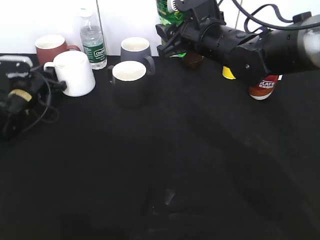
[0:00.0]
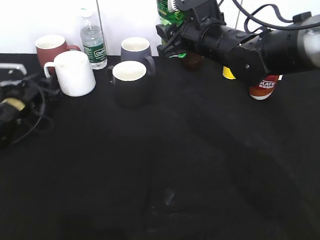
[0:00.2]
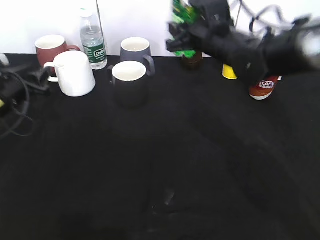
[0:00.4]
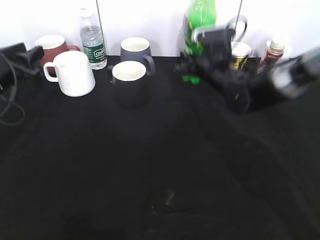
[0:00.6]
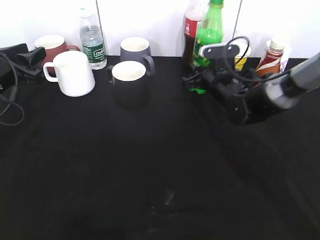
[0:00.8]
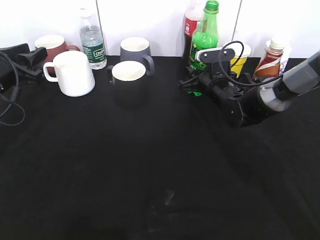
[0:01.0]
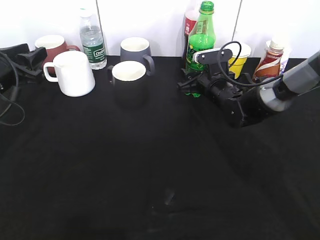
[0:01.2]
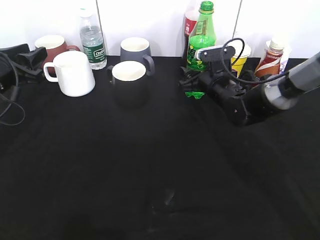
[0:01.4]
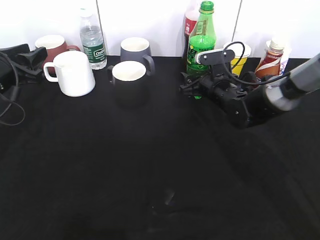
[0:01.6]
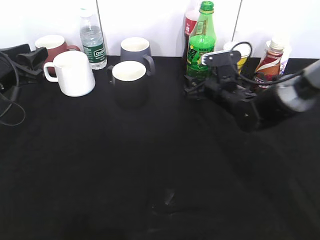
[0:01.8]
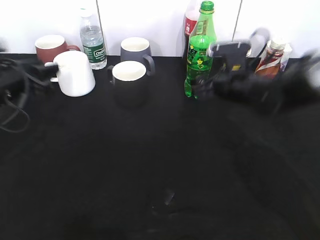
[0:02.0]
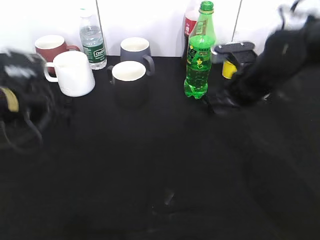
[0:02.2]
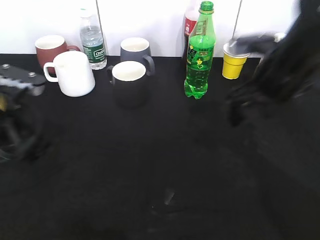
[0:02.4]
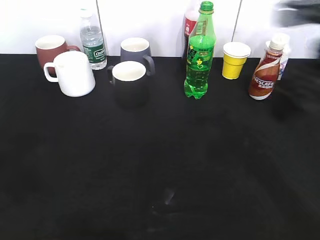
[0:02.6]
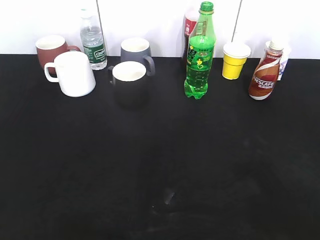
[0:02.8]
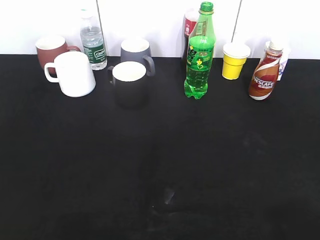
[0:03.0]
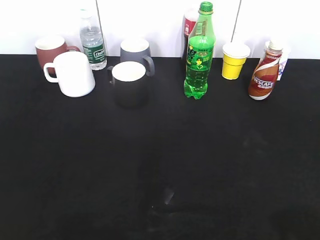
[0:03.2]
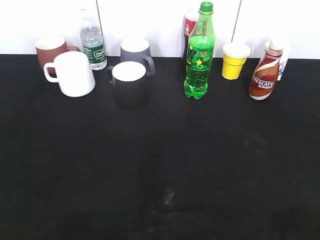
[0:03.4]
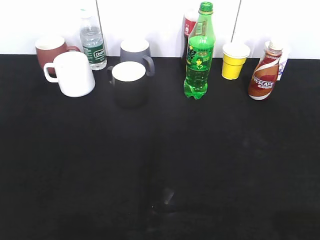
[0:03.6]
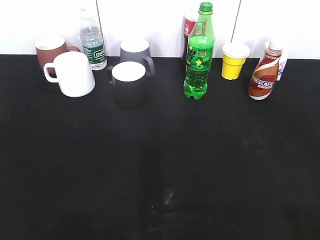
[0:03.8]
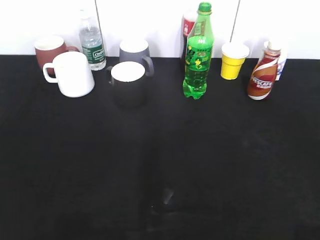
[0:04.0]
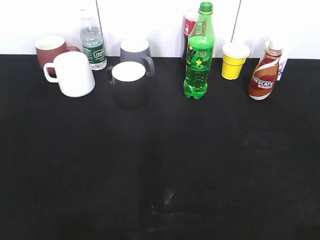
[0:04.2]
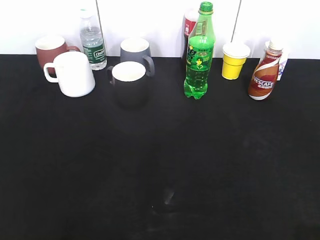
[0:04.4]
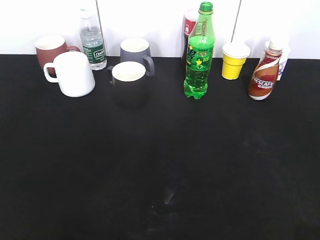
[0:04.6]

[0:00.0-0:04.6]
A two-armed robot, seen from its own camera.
Step, 0.4 to 1.6 s: Place the sprite bottle on the table with right gripper.
0.0 to 1.6 s: The left gripper shifts approximately 15 cm upward and backward. The right gripper heads downward, covering approximately 15 cm, and opens its fingers.
1.6 to 3.0 s: The right gripper moves backward and upward, approximately 40 cm. The left gripper shifts roughly 35 cm backward.

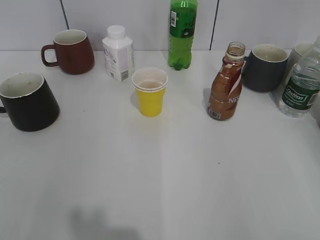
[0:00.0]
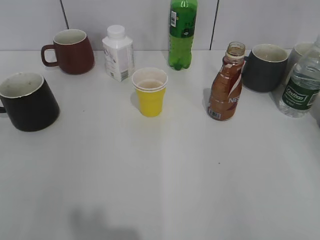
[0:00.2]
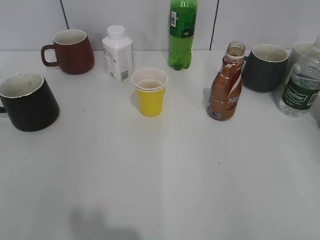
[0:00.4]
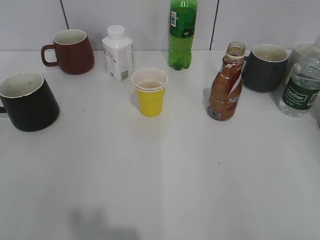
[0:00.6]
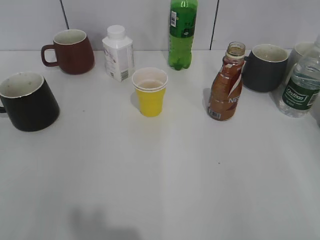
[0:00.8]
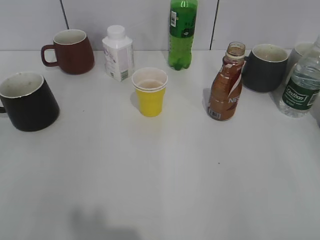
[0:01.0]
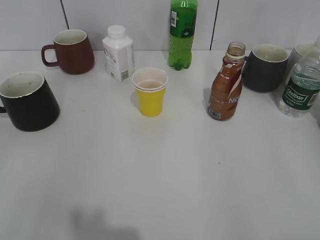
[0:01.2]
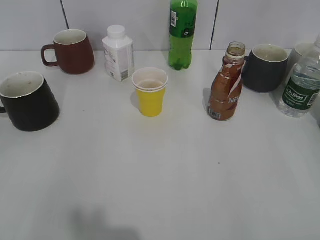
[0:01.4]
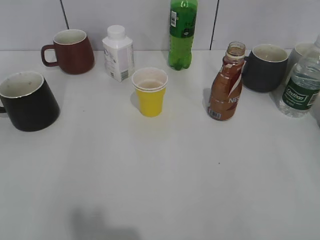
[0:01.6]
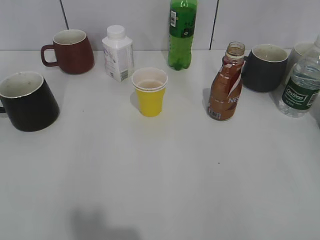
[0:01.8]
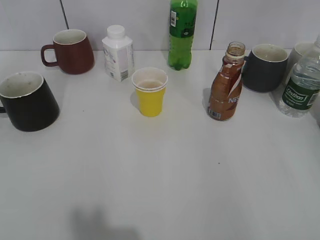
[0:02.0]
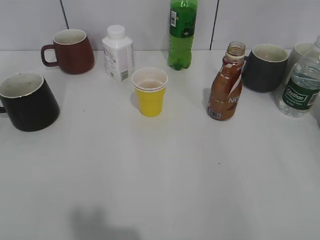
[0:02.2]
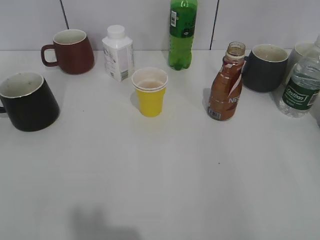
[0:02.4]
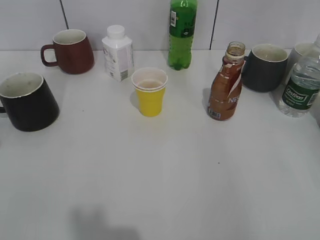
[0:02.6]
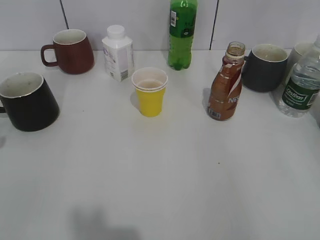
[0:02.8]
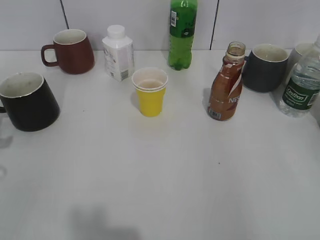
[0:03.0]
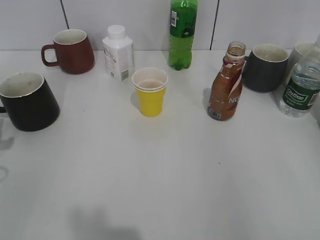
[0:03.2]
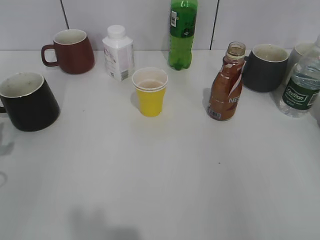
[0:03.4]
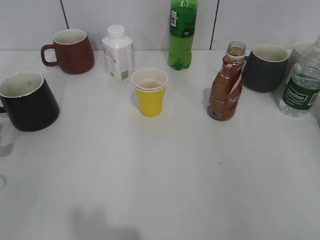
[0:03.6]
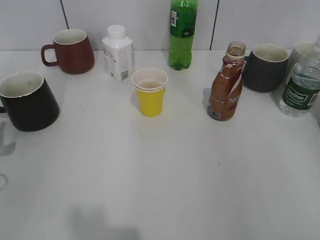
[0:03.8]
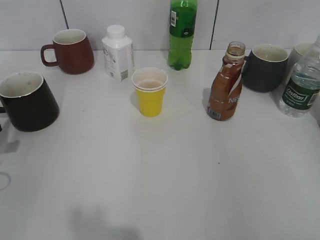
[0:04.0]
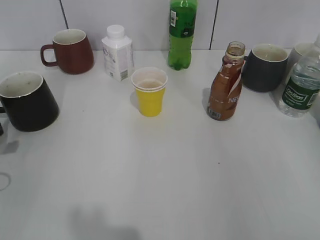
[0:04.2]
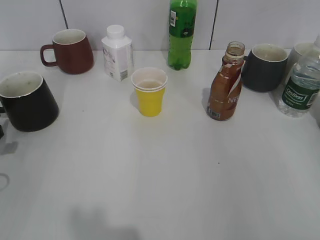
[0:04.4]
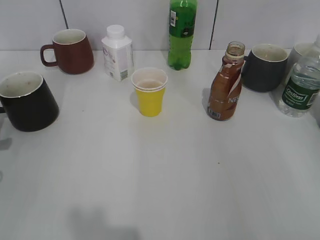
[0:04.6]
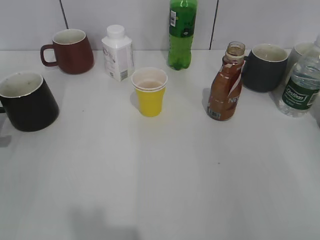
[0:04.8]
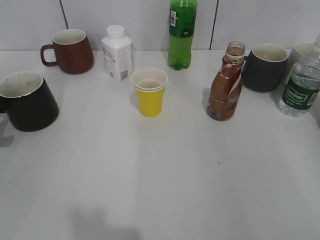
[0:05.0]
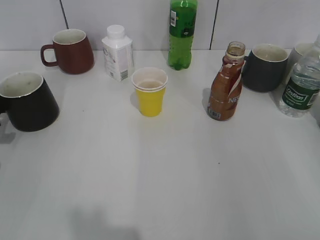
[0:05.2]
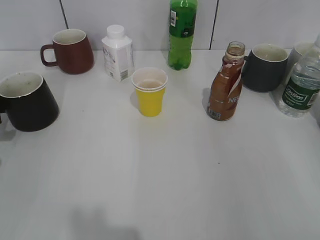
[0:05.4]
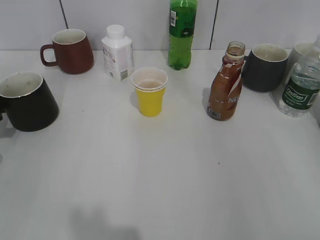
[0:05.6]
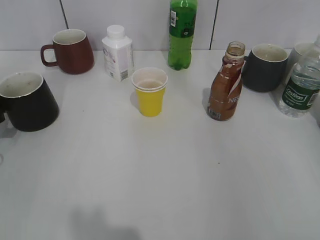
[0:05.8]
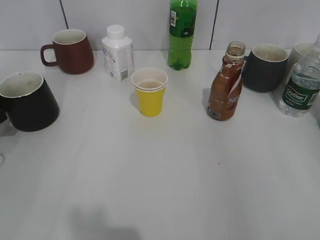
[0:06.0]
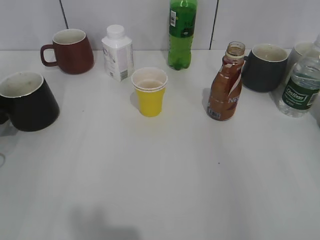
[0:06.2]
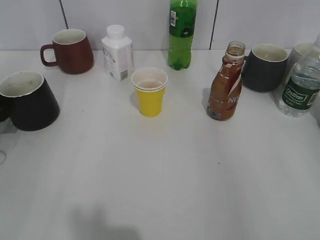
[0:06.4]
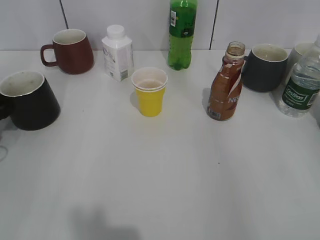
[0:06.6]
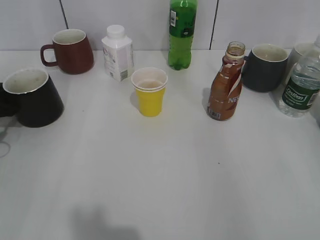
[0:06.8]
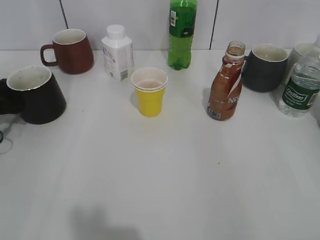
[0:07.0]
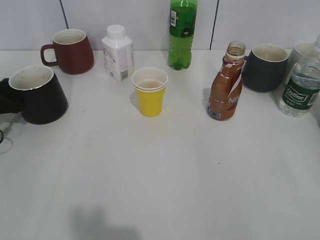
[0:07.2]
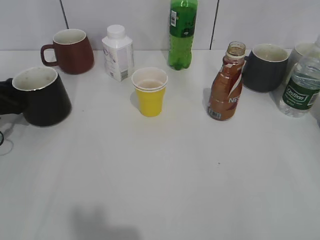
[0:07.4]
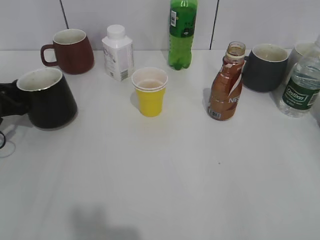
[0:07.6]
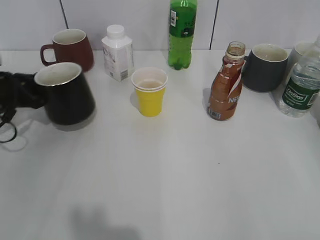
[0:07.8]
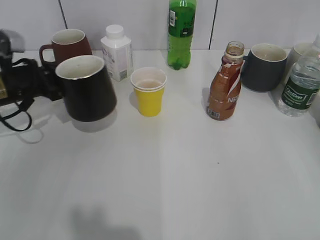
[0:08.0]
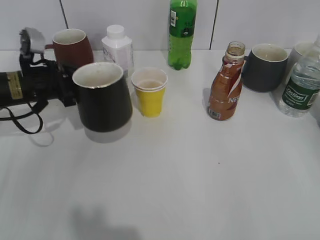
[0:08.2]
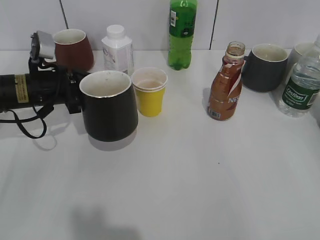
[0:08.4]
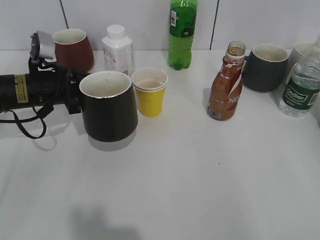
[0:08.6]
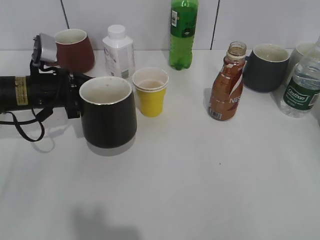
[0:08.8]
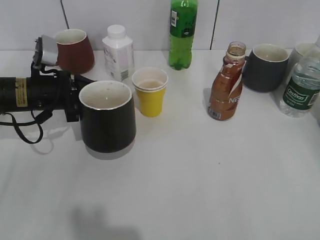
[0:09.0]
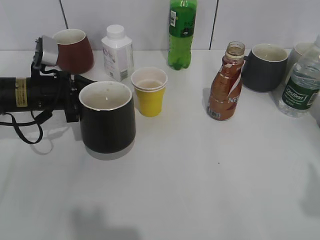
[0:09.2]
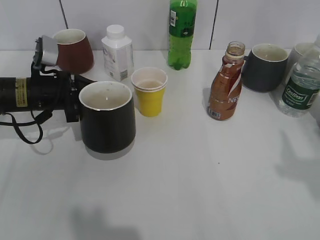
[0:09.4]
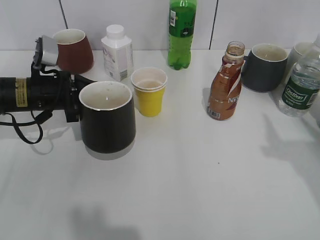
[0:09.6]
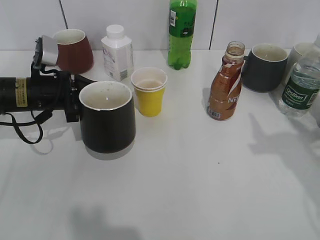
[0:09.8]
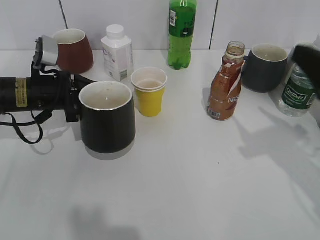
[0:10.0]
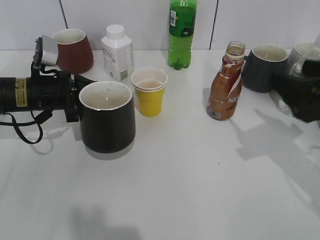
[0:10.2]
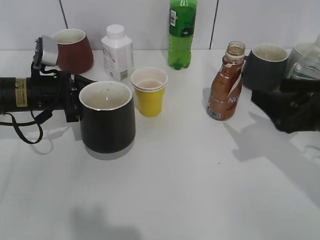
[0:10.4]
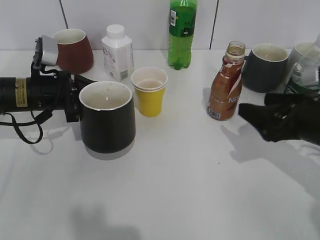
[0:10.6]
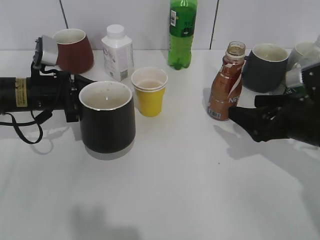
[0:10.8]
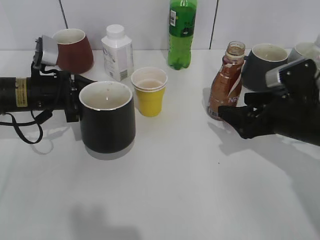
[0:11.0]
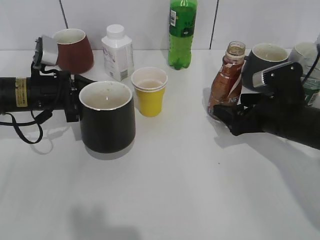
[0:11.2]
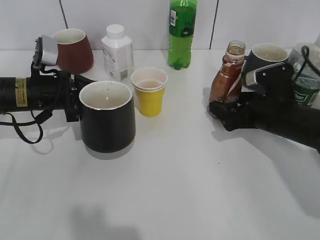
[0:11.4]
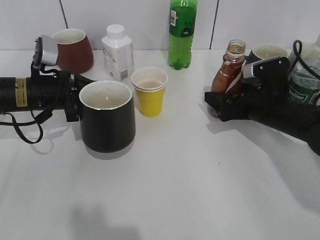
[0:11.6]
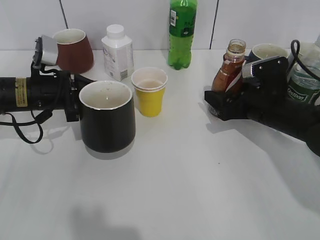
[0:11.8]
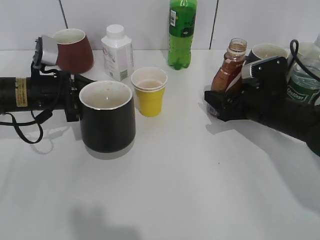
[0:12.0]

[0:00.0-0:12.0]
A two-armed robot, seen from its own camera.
Step, 1.2 to 7.4 s: Grasp the black cup with left gripper.
Step, 7.6 to 8.8 s: Lift the black cup with left gripper.
Step, 9.0 to 11.6 s: Grasp the bottle with coffee with right gripper.
3.0 to 4.4 s: The left gripper moves downward, approximately 5 cm.
6.0 to 7.6 s: The left gripper moves roughly 5 cm, and closes.
7.6 to 9.0 s: The left gripper is displaced to the right by some 10 cm.
9.0 to 10.4 s: The right gripper travels forward and downward by approximately 25 cm.
10.4 to 12.0 s: The right gripper goes roughly 15 cm forward and downward, and opens, then closes once more.

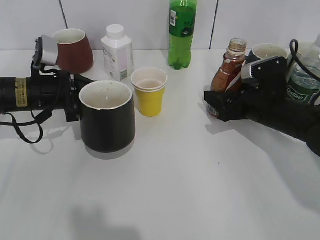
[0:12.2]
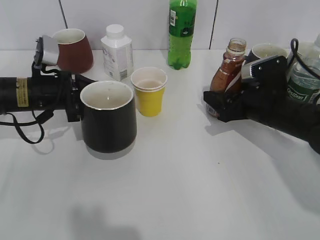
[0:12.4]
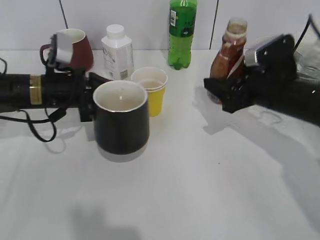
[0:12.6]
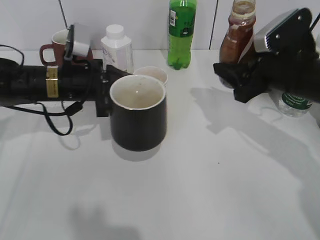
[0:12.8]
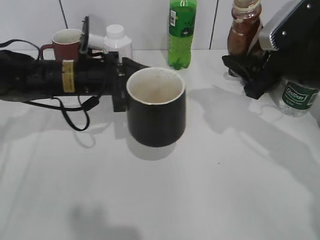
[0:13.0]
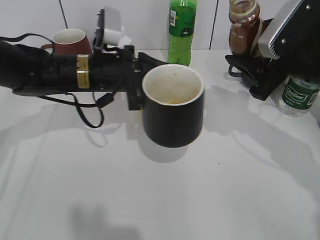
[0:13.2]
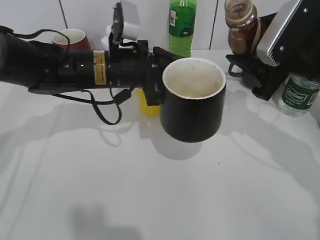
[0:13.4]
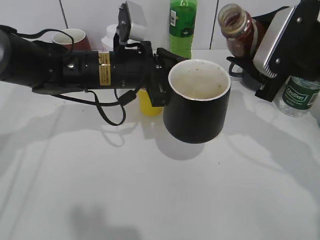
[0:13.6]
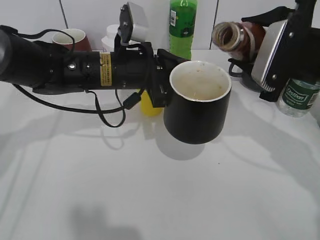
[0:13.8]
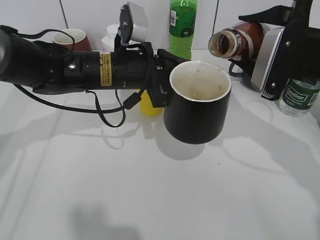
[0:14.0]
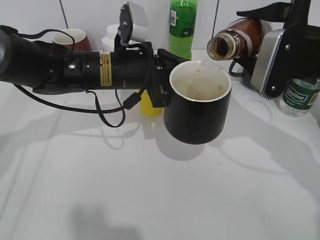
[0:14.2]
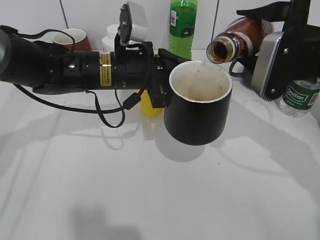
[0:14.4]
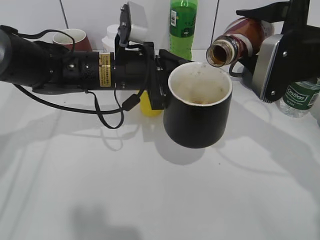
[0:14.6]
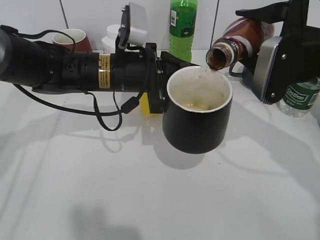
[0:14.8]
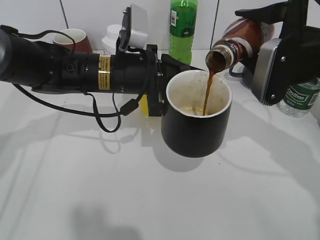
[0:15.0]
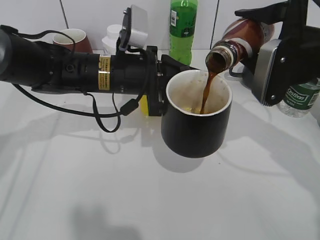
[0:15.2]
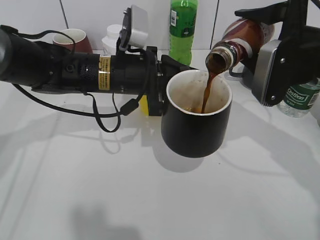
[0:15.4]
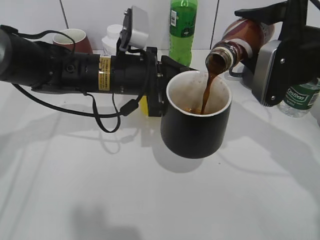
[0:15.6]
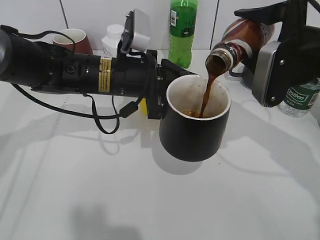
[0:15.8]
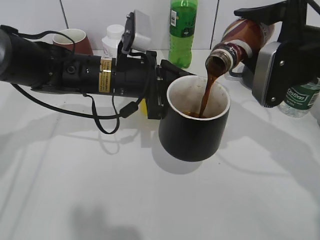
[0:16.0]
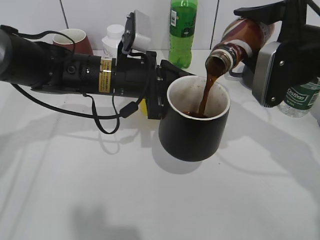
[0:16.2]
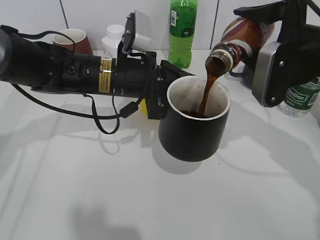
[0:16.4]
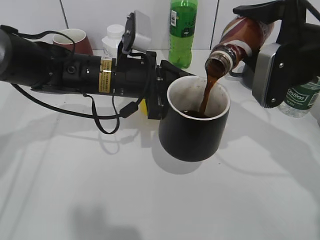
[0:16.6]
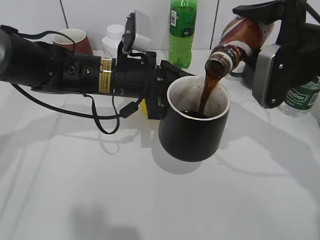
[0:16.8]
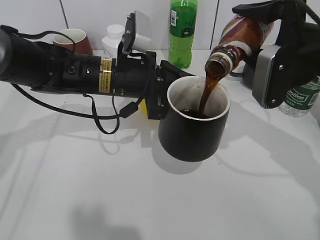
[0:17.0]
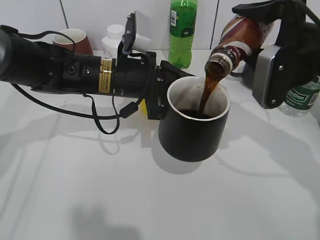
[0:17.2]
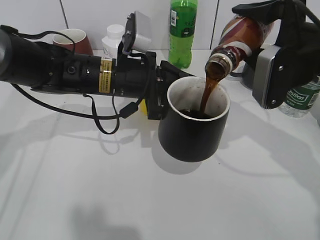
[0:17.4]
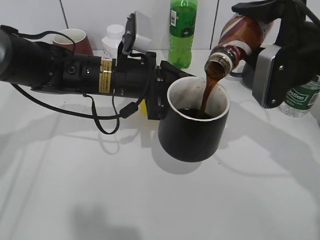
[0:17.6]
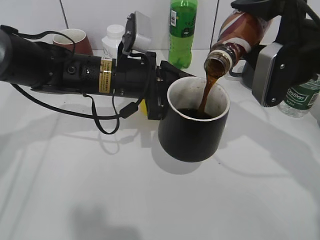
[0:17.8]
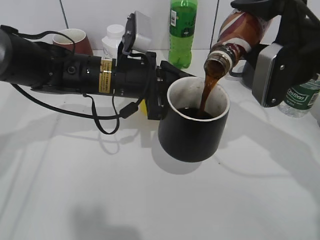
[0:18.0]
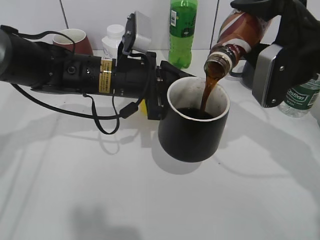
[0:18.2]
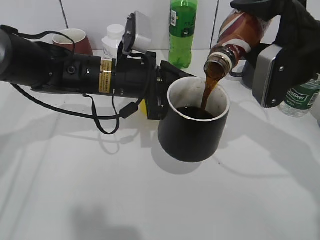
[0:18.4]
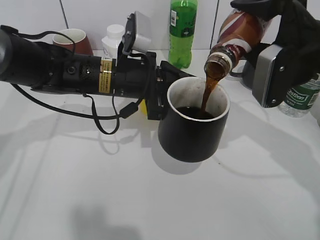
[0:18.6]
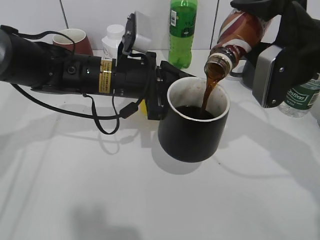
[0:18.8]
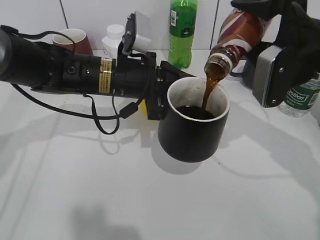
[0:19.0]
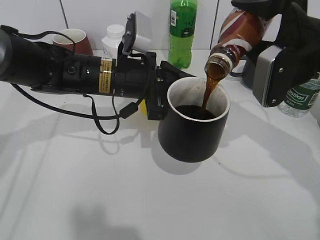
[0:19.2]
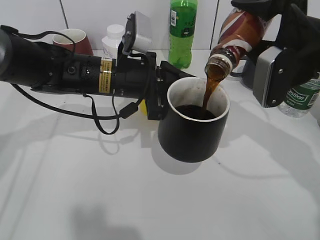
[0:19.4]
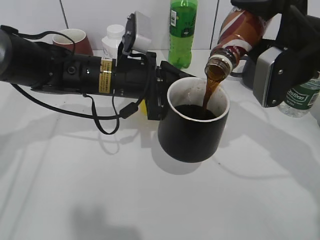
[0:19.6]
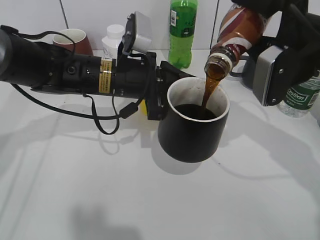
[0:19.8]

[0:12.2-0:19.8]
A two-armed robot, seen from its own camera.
12.2 to 13.8 s: The left gripper moves to the right, some 15 cm; the right gripper shifts roughly 15 cm upward.
15.2 to 19.8 s: There are only small adjustments of the grippers.
